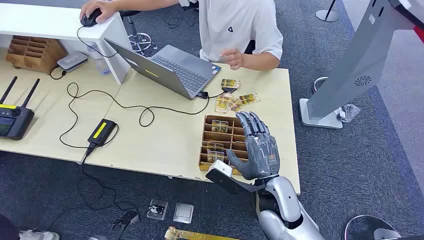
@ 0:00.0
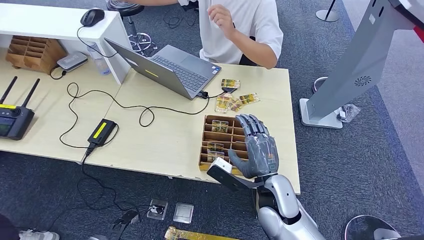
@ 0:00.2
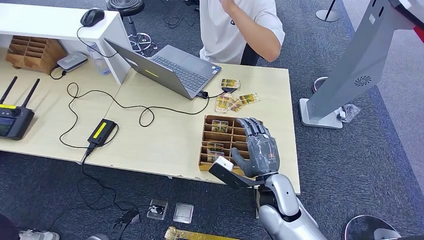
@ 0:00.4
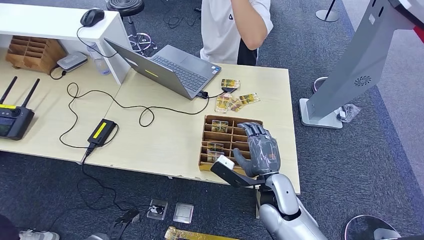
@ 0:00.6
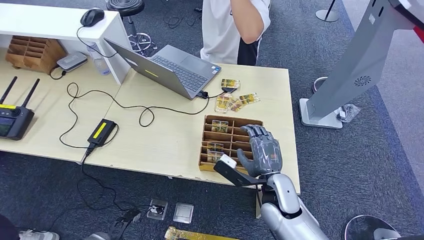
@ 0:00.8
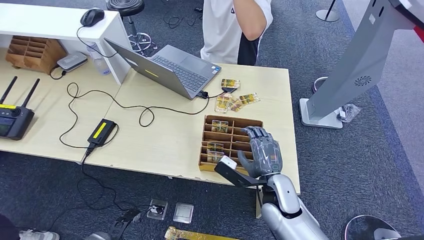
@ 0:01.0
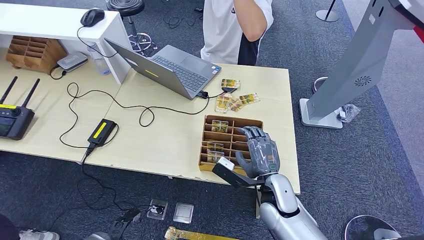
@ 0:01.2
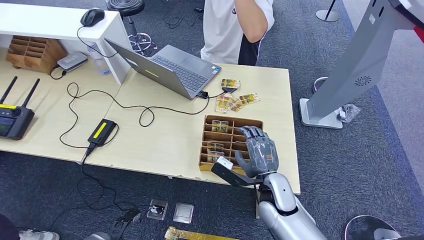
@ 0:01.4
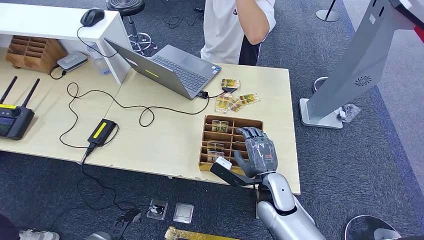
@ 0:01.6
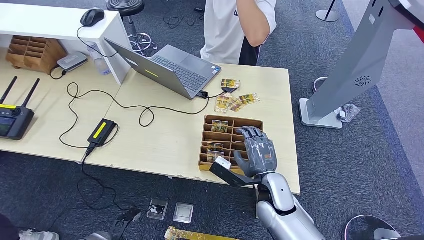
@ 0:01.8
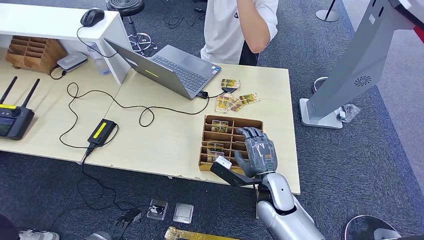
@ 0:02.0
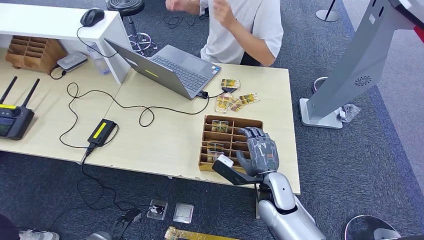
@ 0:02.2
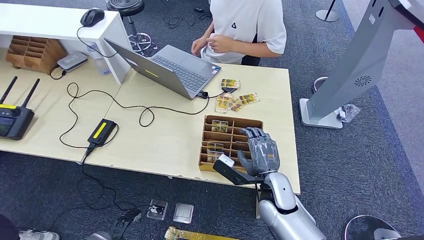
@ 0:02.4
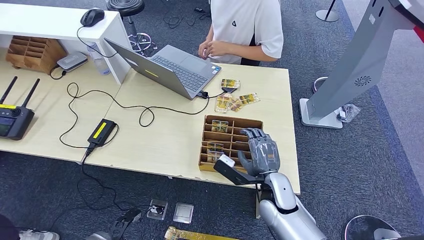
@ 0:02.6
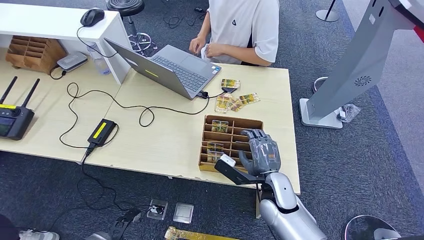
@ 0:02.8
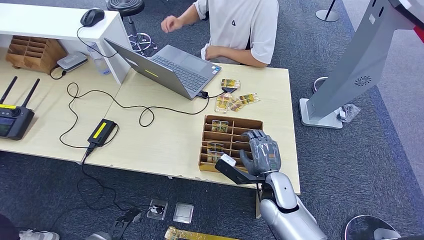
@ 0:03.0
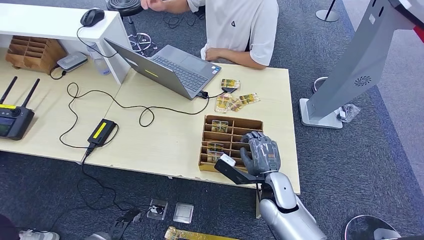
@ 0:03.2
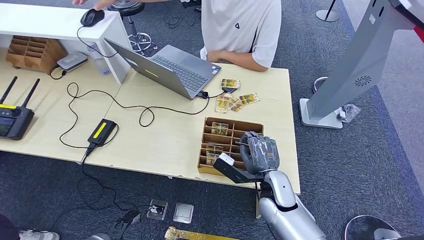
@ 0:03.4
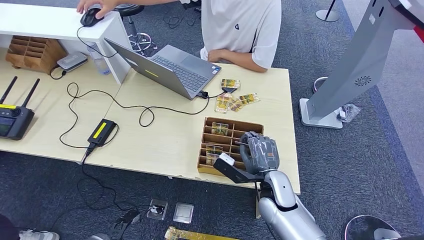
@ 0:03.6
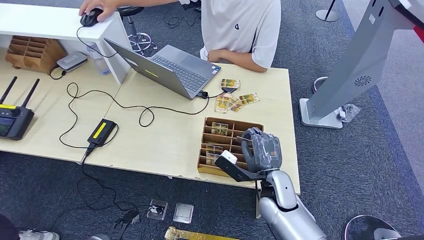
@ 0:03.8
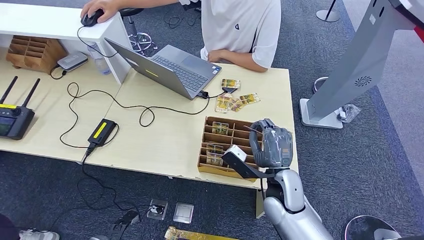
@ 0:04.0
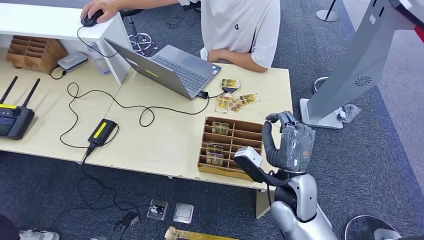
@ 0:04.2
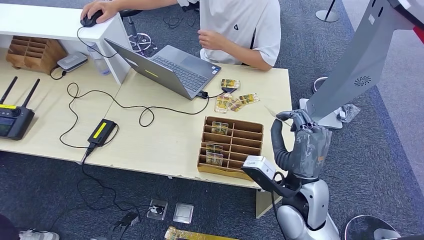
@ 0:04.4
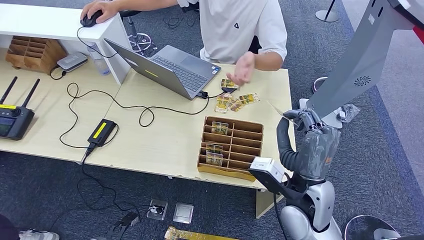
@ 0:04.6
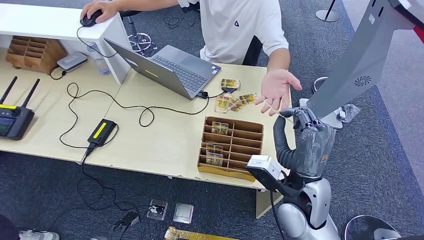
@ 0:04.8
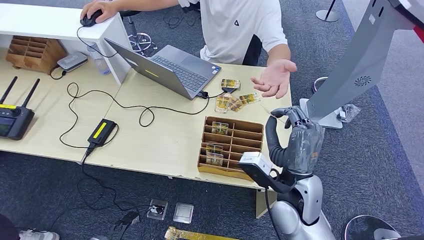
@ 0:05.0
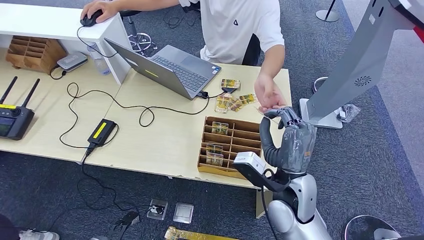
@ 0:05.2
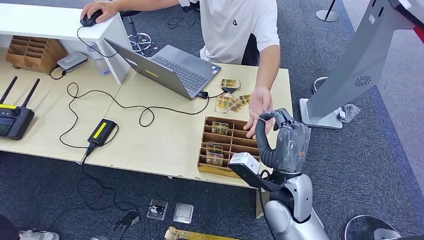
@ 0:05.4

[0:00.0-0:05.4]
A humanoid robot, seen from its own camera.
Step, 0:00.0 to 0:03.8: Pick up the room card from the card holder.
Step, 0:04.0 to 0:05.4: Hand the room card to the target.
0:01.4 to 0:02.8: The hands make only small movements.
0:02.8 to 0:04.0: The right hand is displaced upward by roughly 15 cm.
0:04.0 to 0:05.4: The right hand is displaced downward and to the left by some 5 cm.
